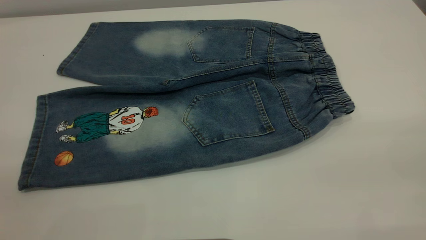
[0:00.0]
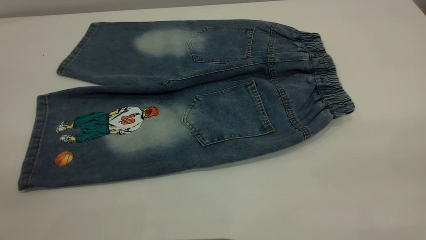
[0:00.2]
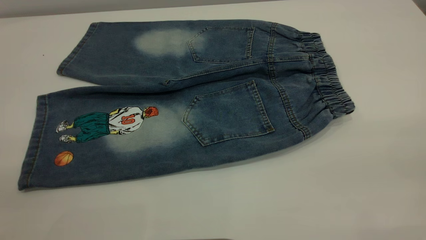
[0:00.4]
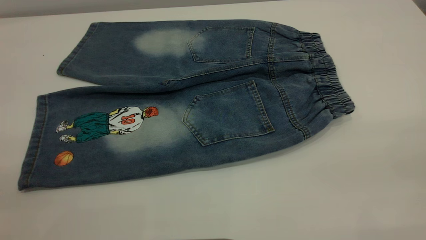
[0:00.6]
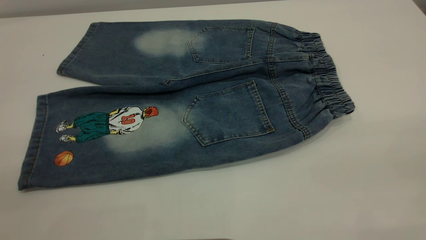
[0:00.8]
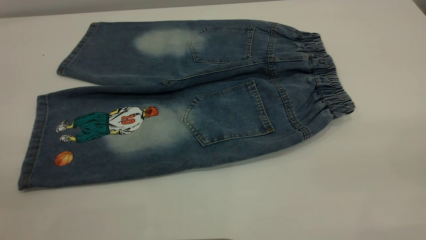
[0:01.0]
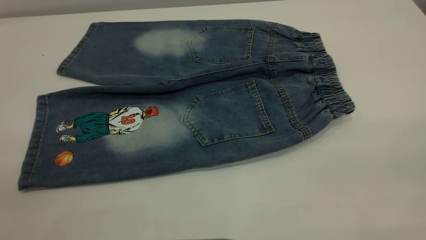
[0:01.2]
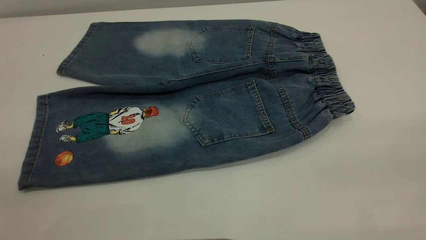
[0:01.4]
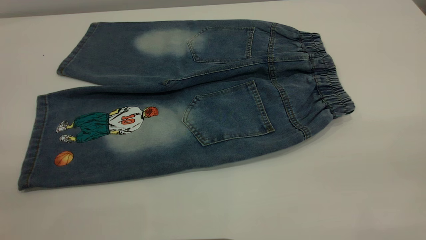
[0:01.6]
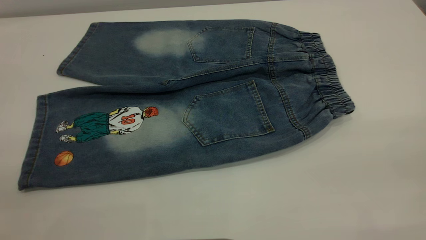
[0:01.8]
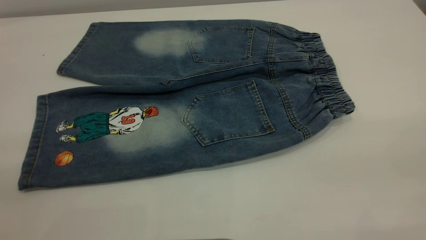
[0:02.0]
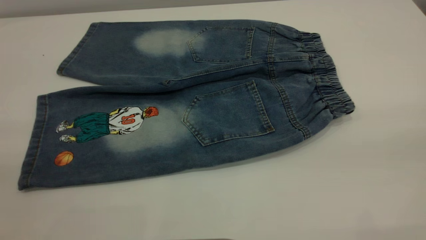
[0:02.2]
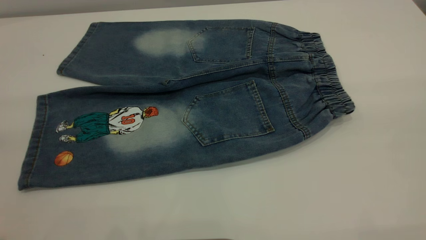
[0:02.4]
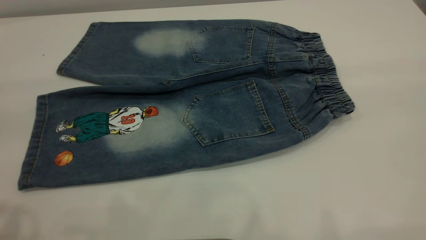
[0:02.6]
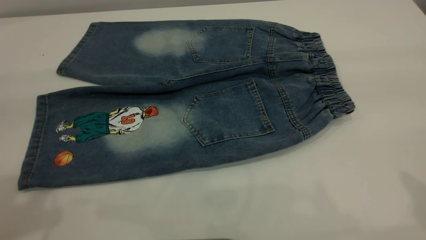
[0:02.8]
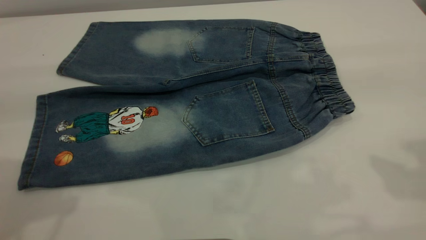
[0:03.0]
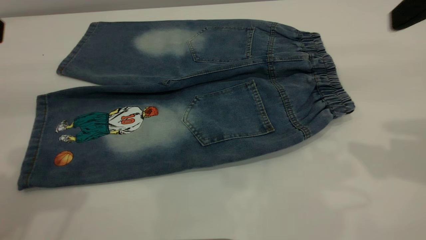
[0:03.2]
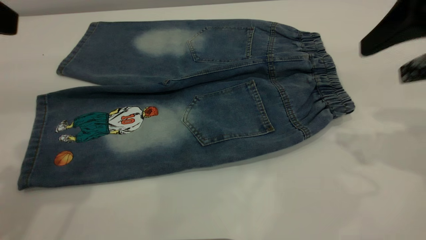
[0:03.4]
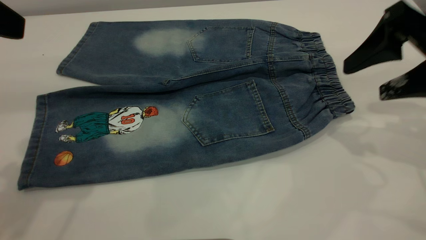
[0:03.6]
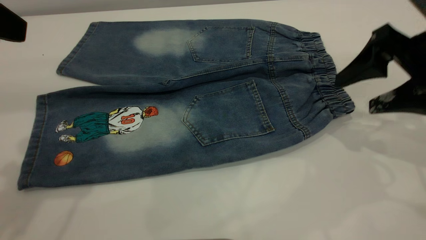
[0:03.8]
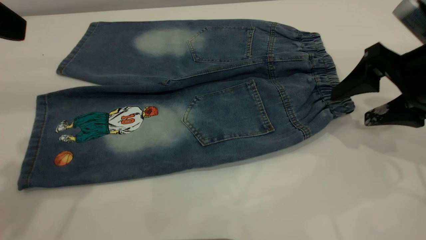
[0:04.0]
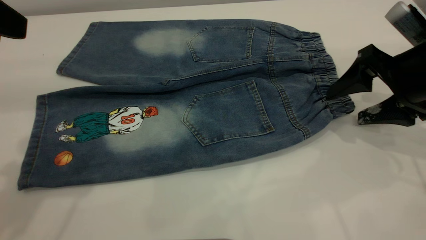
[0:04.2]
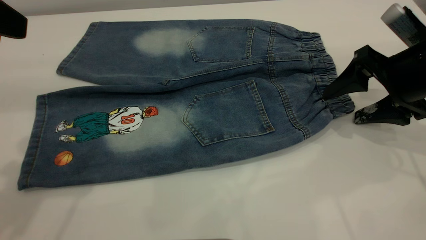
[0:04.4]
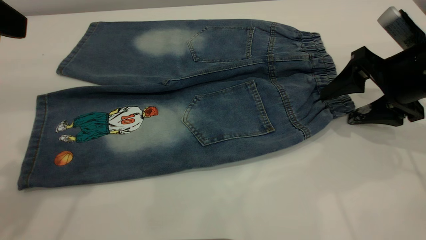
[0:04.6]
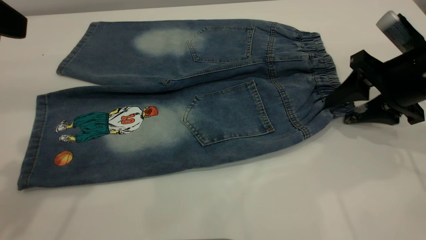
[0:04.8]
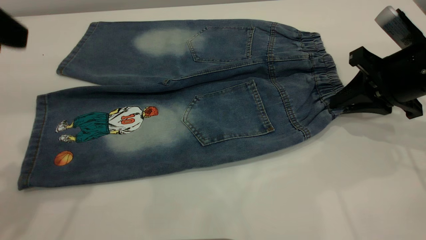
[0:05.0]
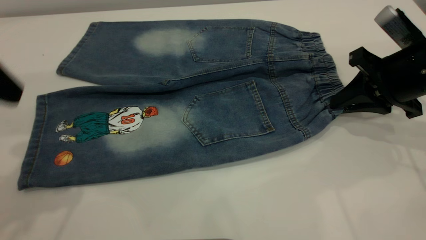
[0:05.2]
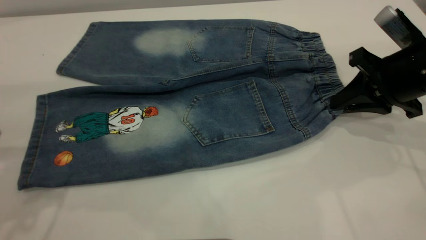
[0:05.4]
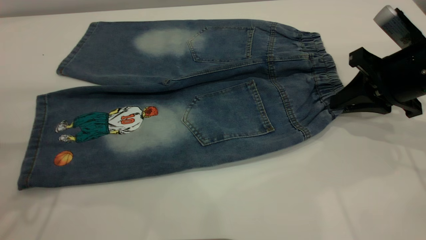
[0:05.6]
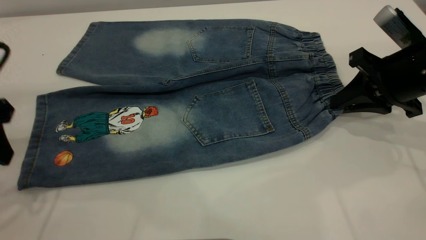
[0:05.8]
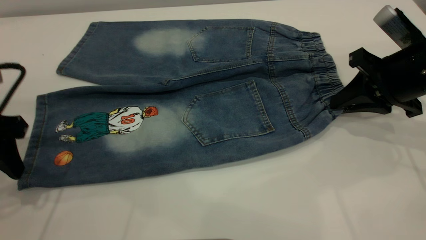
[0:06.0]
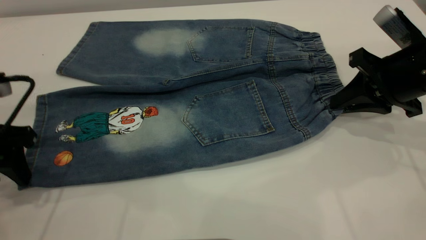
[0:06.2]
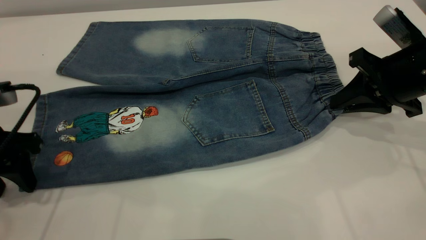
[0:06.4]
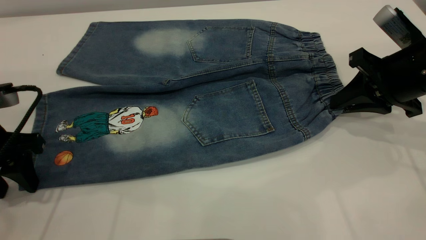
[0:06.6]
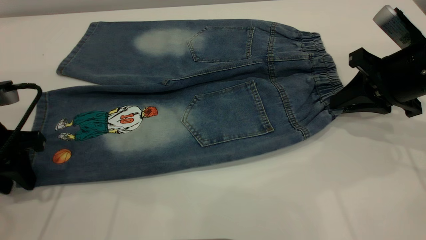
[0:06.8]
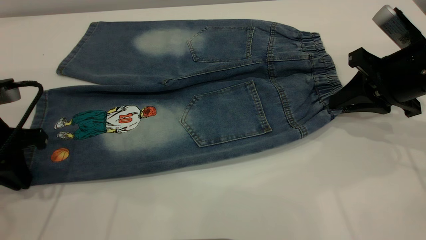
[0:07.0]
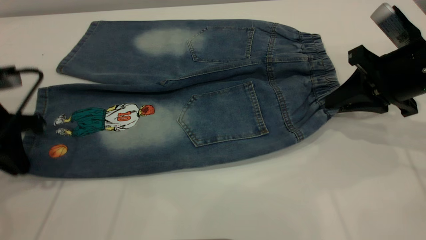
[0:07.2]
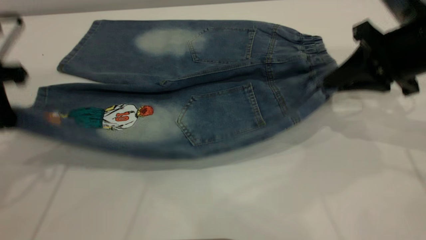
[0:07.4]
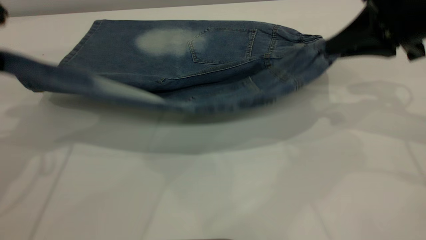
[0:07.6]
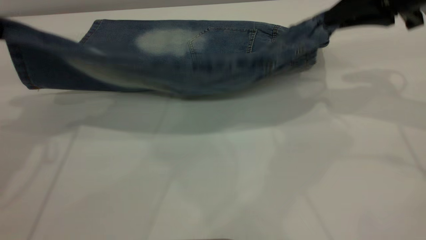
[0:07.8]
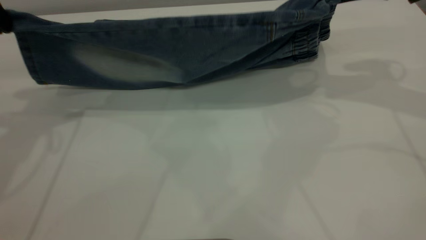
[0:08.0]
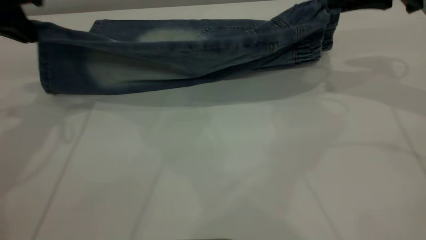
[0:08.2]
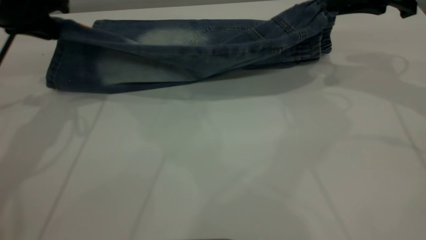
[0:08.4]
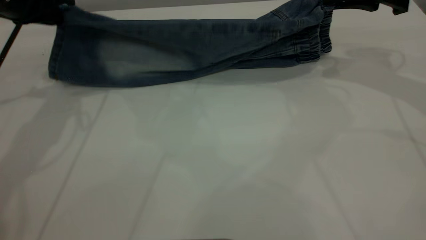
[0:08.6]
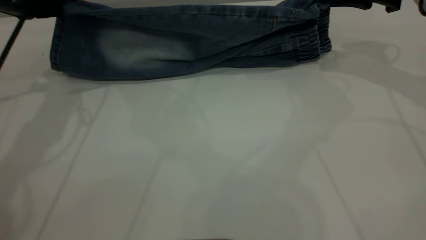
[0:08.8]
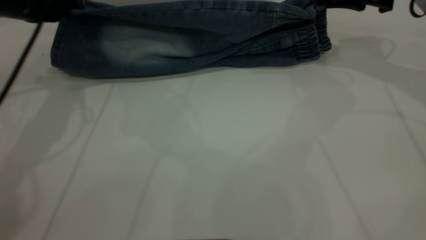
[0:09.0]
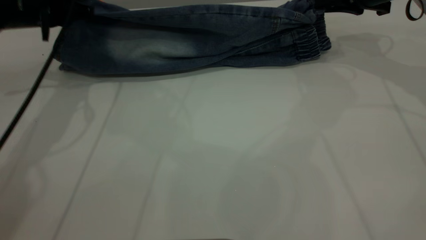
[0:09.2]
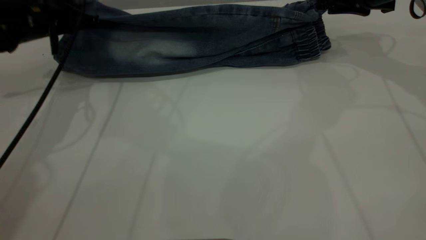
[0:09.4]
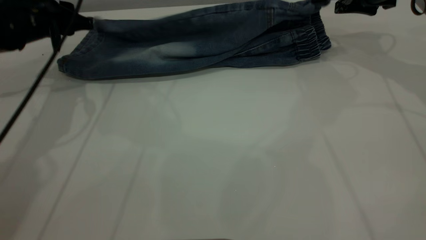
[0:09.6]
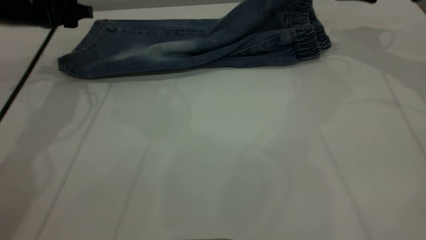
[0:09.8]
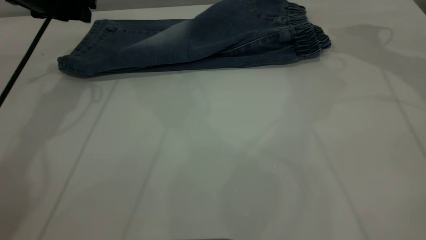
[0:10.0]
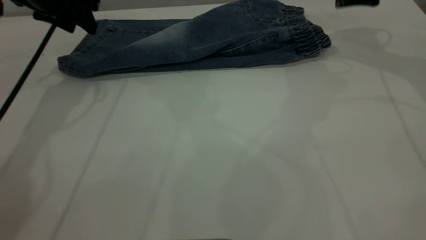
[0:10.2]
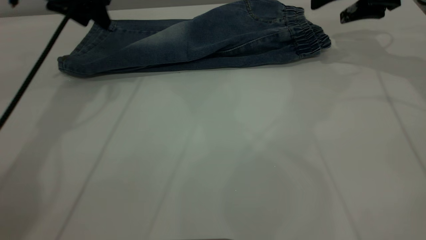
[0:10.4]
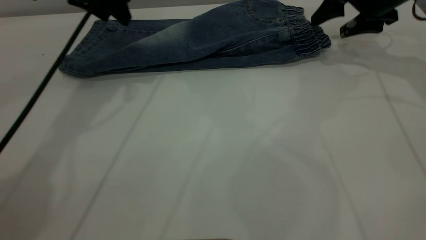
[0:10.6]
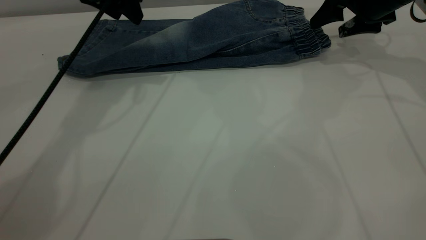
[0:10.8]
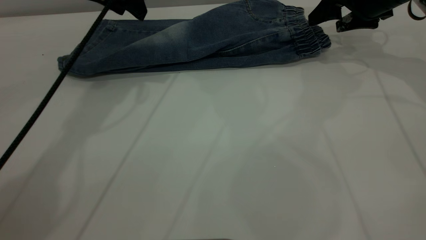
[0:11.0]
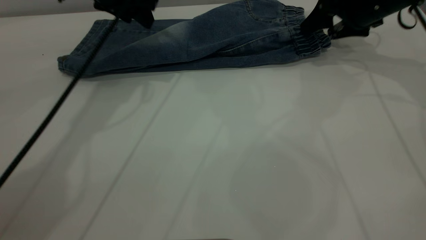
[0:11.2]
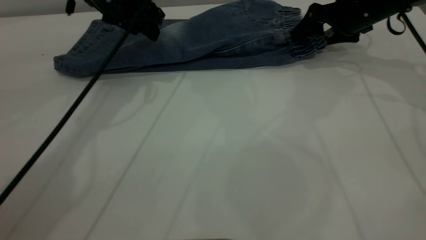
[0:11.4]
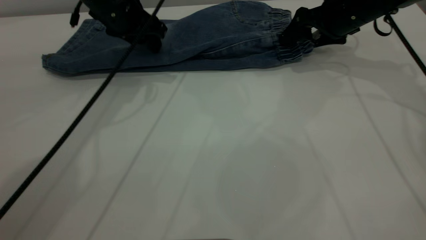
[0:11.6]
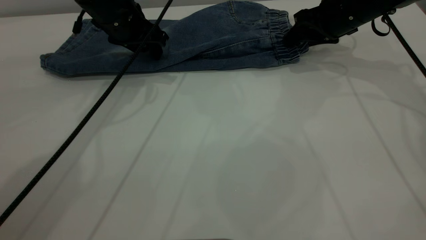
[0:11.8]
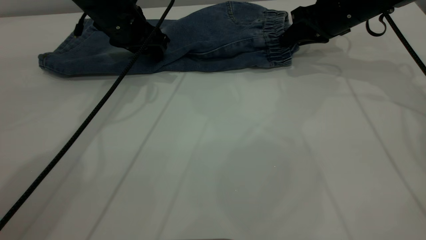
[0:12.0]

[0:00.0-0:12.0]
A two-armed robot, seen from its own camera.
Step, 0:00.0 to 0:09.8: Fold the bottom of the pants upward.
0:00.0 to 0:01.6: Neither gripper changes place.
0:03.0 to 0:04.4: The right gripper moves downward and forward, roughly 20 cm.
0:04.4 to 0:06.0: The right gripper closes its fingers; the left gripper shifts roughly 15 cm downward.
0:06.0 to 0:07.6: The right gripper travels upward by about 10 cm. The left gripper moves upward and forward, about 15 cm, and closes its fingers.
0:07.6 to 0:09.0: The left gripper shifts roughly 15 cm forward and downward. The right gripper shifts some 15 cm forward.
0:09.0 to 0:10.4: The right gripper opens up; the left gripper moves to the right, some 5 cm, and opens its fingers.
0:10.4 to 0:12.0: The left gripper shifts approximately 10 cm downward and to the right. Meanwhile the right gripper shifts about 5 cm to the left, and closes.

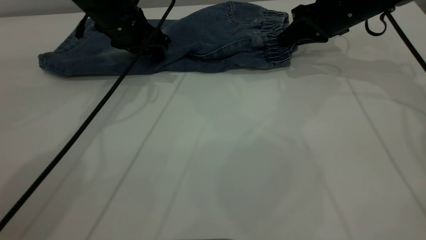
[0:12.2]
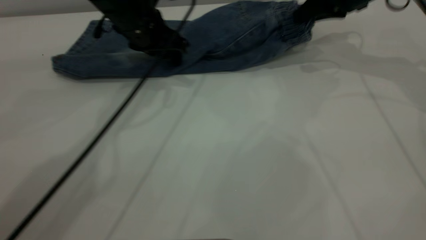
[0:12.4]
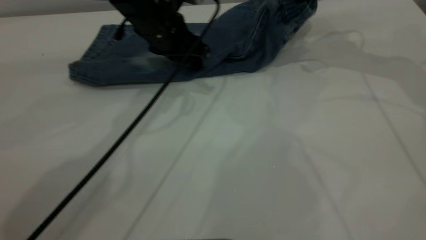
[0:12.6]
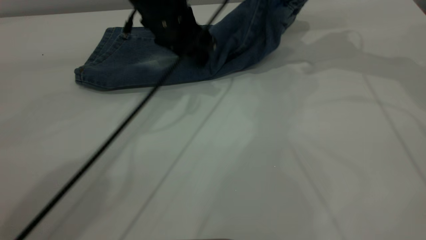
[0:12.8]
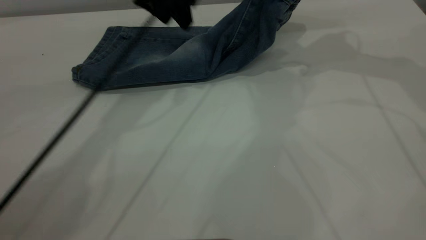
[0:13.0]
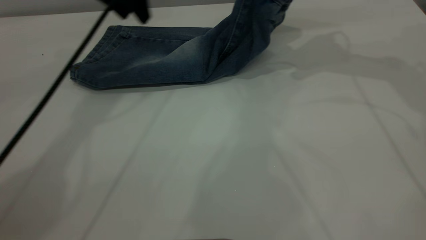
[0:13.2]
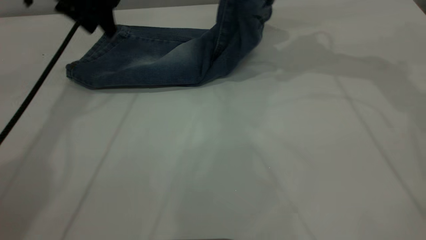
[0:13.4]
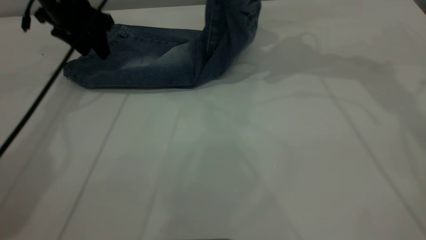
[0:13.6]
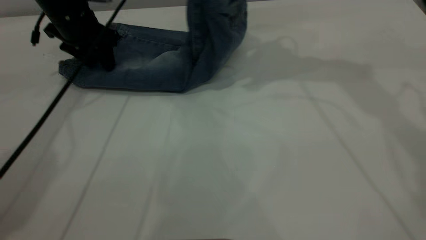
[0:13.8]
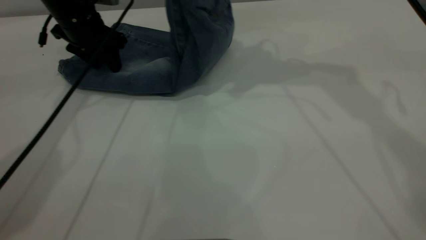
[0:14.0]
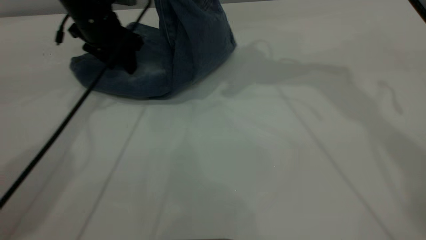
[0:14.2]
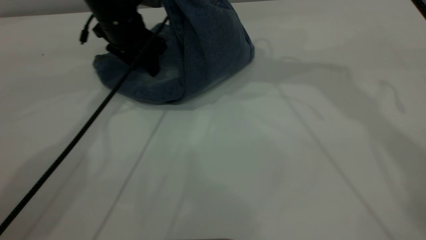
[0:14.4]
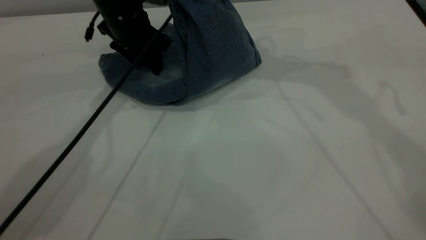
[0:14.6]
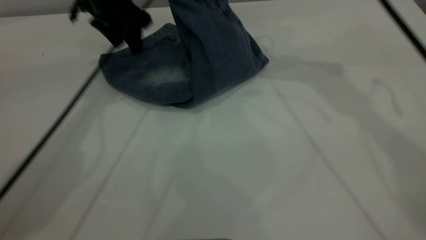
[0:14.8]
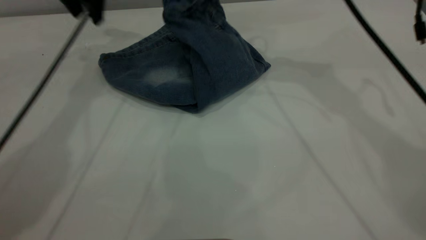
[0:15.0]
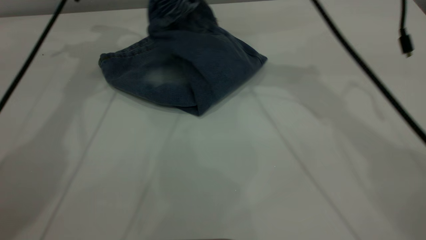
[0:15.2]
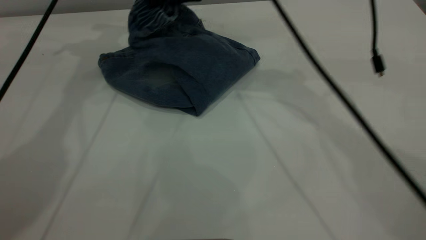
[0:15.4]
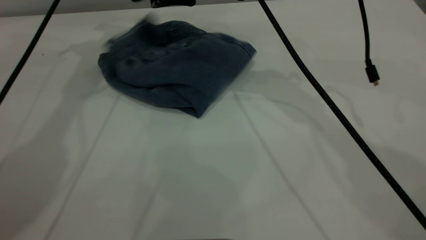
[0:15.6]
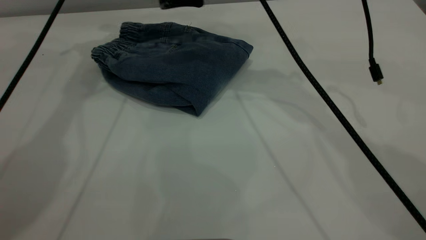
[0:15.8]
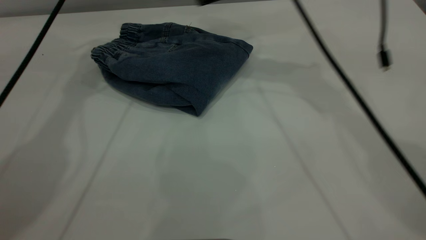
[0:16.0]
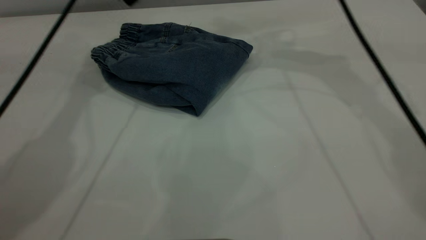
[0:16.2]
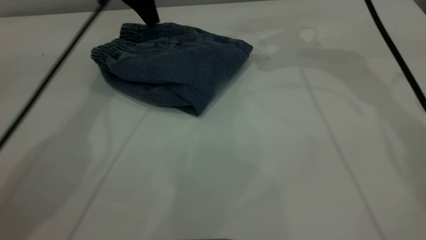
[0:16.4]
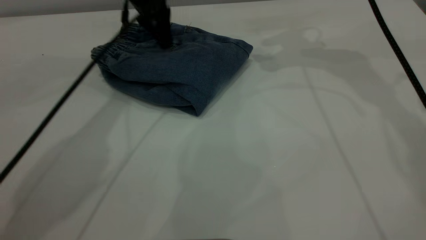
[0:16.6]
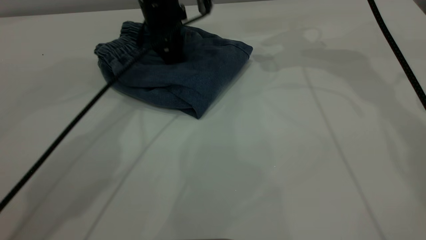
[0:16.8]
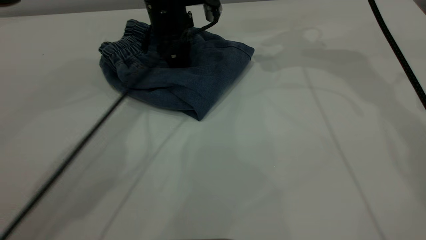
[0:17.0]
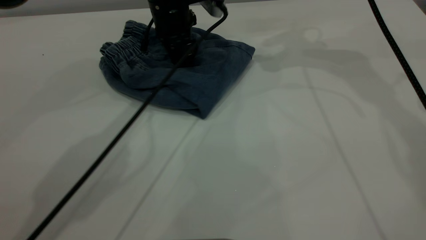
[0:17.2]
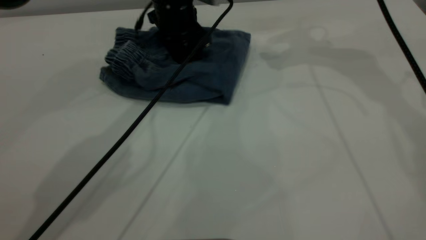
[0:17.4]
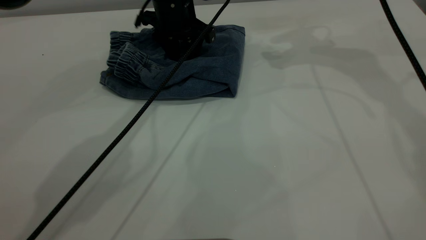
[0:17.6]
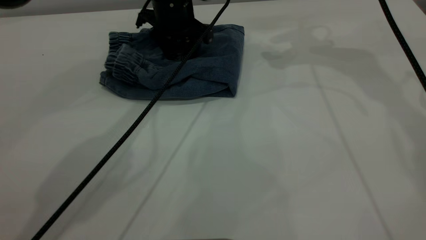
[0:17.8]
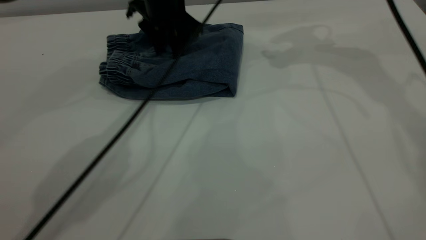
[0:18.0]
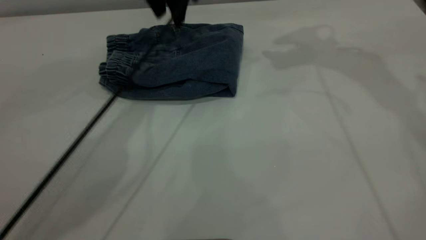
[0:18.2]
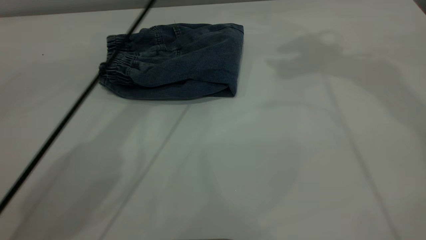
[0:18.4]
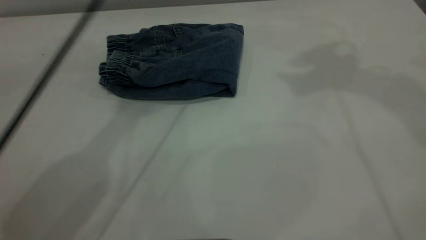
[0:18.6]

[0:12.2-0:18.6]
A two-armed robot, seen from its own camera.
Step, 0:12.2 to 0:16.0: Fold your pants from right to left.
0:12.2 to 0:13.8: The left gripper travels to the left by roughly 10 cm. Meanwhile the right gripper goes some 20 cm upward and to the left.
0:13.8 to 0:15.4: The right gripper heads to the left and downward, covering approximately 15 cm, while the left gripper is displaced upward by some 15 cm.
0:15.4 to 0:17.0: The left gripper moves to the right and downward, about 20 cm; the right gripper moves to the right, approximately 15 cm, and opens its fingers.
0:17.0 to 0:18.6: The left gripper heads upward, covering approximately 25 cm. Meanwhile the right gripper is displaced upward and backward by some 20 cm.
